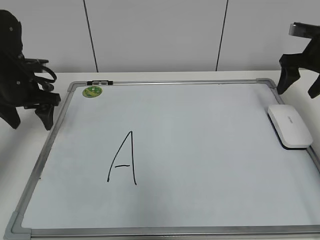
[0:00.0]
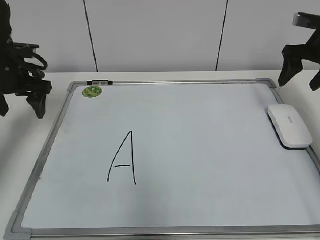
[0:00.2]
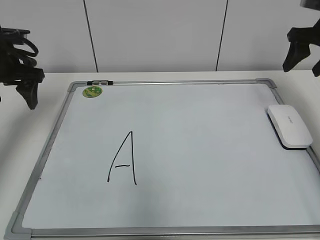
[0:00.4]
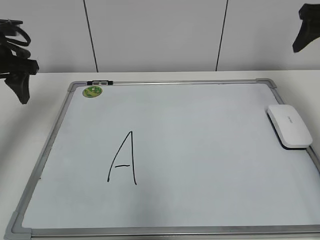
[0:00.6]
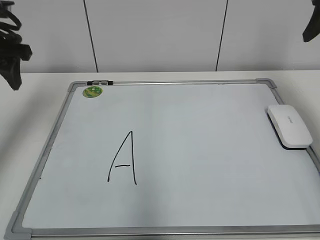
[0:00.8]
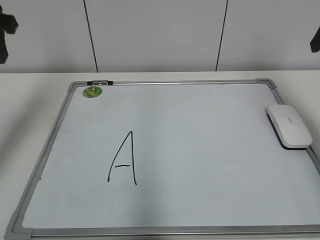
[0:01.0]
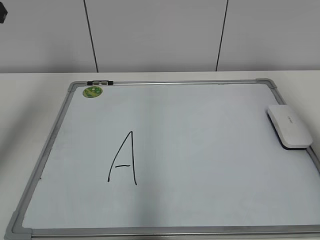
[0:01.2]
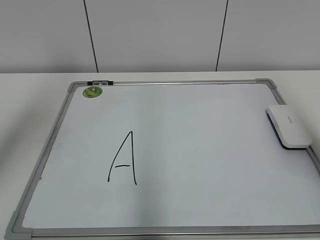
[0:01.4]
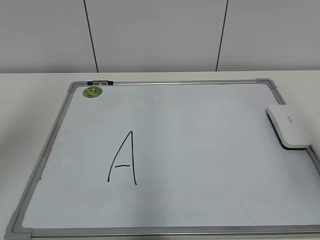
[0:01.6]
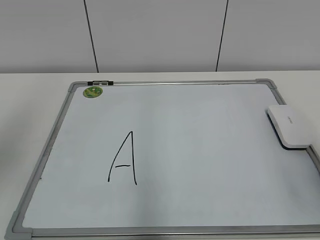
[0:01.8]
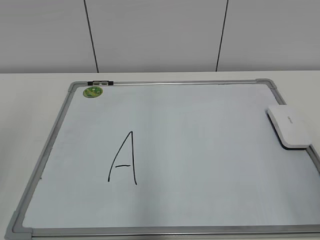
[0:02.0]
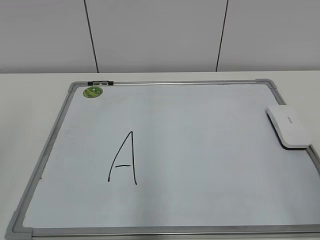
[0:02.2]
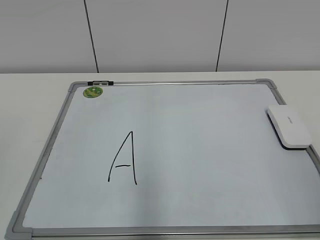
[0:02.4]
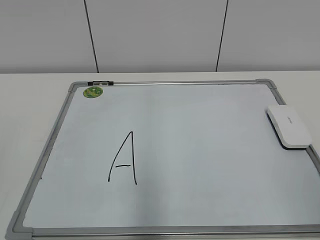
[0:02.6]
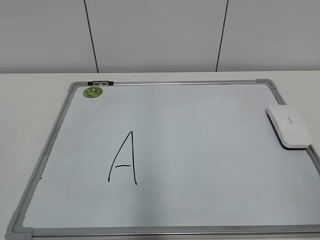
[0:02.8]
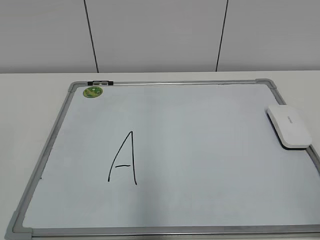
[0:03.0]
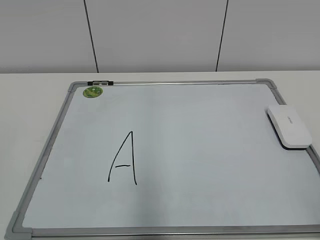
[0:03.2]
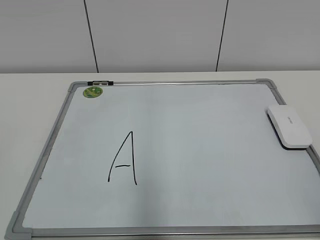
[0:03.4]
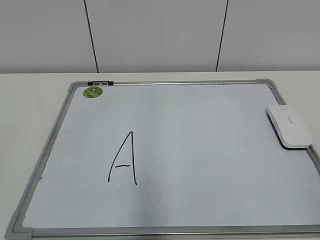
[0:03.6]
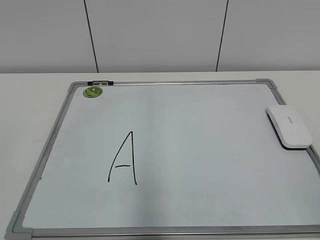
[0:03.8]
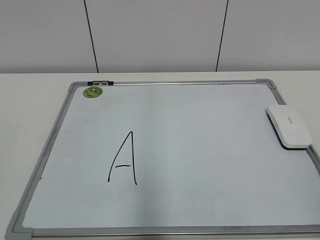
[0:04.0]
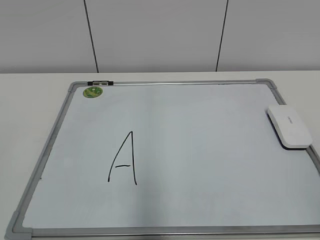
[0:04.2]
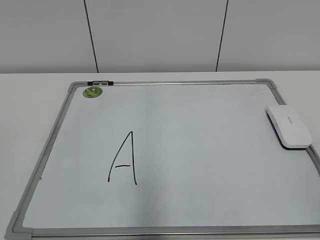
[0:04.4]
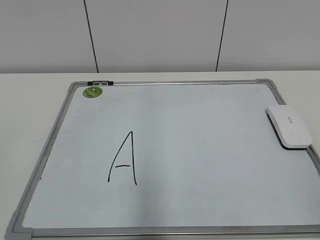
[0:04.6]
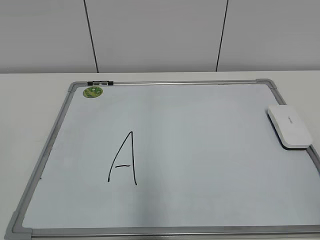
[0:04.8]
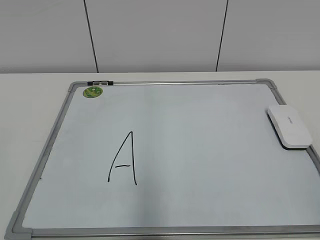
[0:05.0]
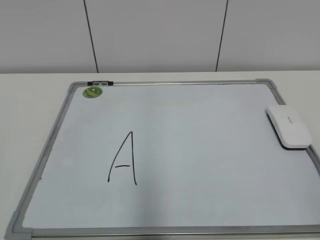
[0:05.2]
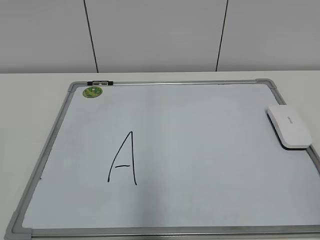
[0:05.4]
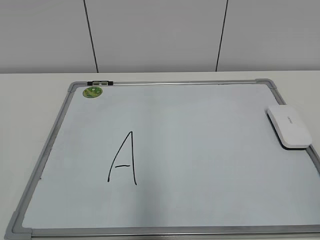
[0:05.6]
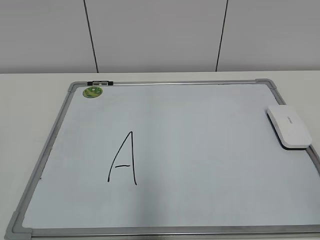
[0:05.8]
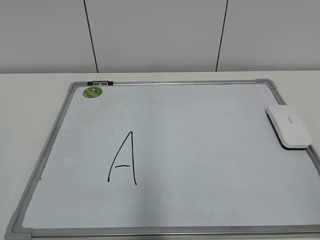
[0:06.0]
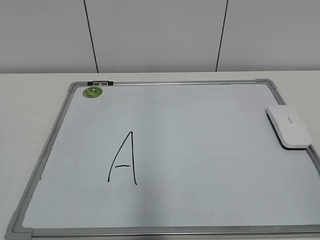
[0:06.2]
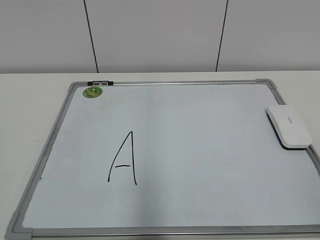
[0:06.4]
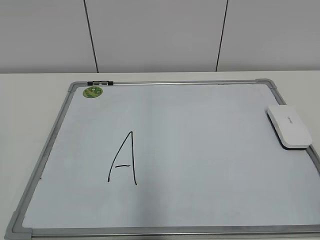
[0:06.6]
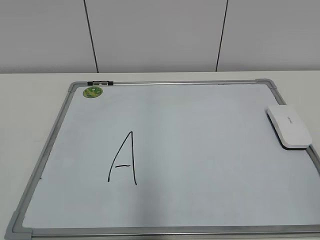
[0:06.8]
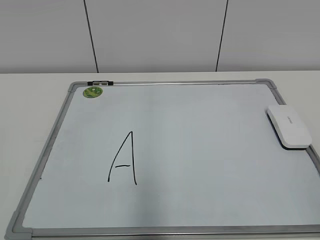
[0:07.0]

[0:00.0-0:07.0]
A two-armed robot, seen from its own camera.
Task of the whole recording: pick up the eraser on the blackboard and erase the letter "a".
0:00.0 to 0:01.4: The right gripper shifts about 25 cm backward and upward, and closes its fingers; the left gripper heads upward and backward, covering roughly 25 cm, and closes its fingers.
0:01.4 to 0:02.8: The grippers both shift backward by roughly 25 cm.
0:05.6 to 0:07.0: Neither gripper changes place.

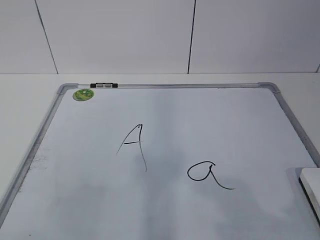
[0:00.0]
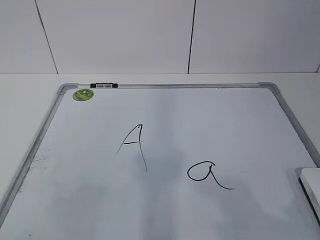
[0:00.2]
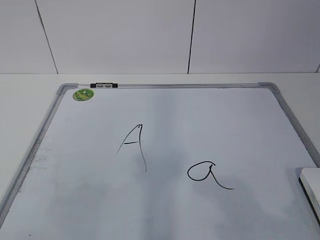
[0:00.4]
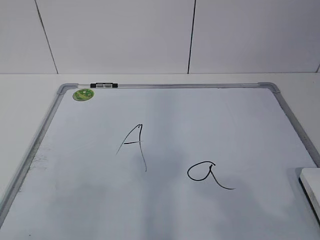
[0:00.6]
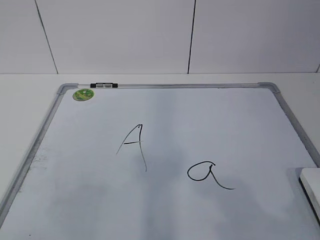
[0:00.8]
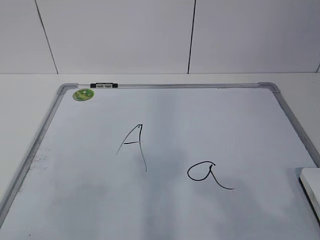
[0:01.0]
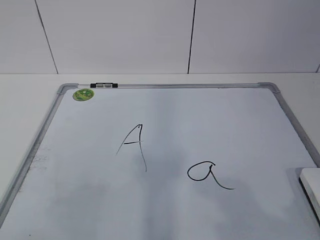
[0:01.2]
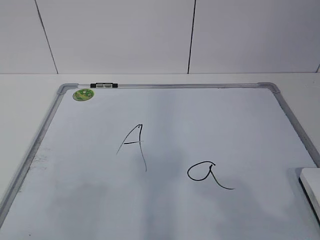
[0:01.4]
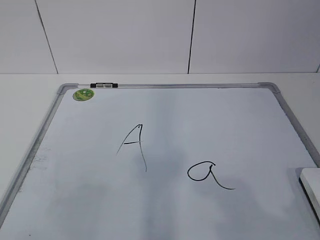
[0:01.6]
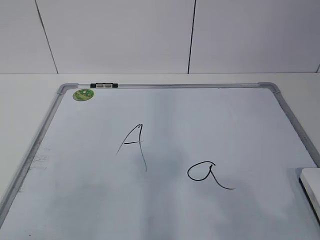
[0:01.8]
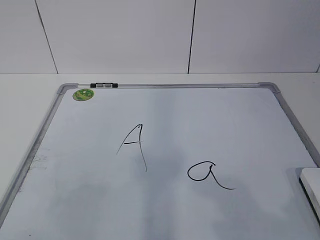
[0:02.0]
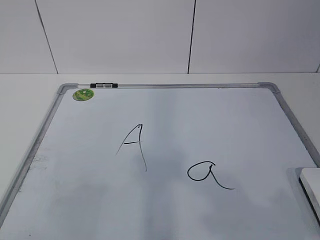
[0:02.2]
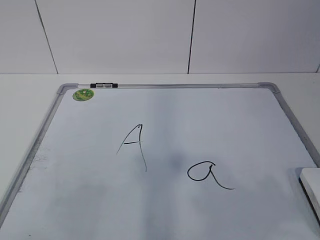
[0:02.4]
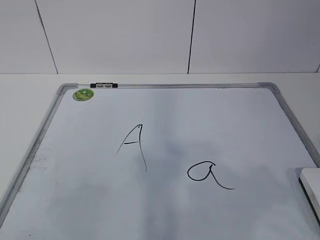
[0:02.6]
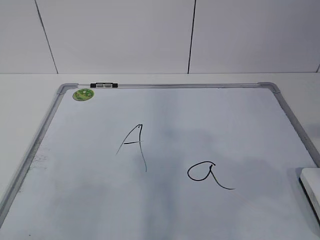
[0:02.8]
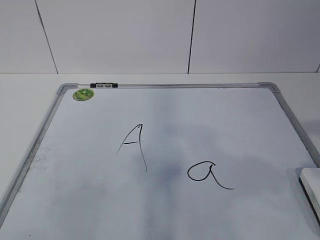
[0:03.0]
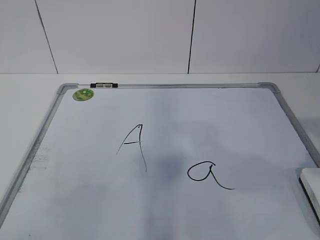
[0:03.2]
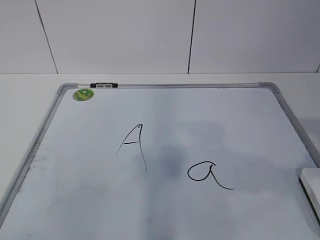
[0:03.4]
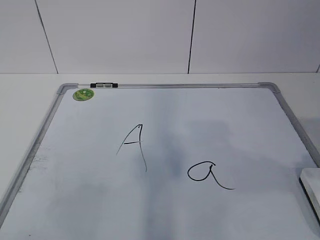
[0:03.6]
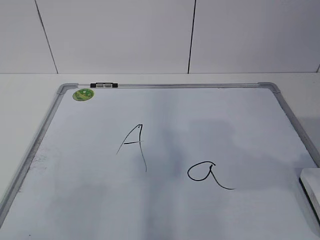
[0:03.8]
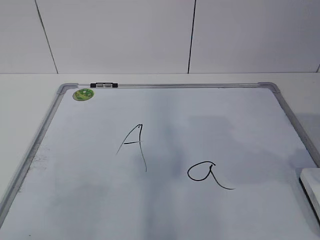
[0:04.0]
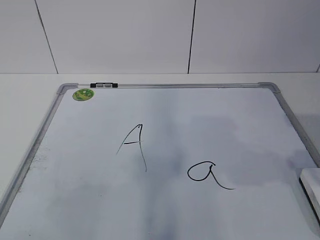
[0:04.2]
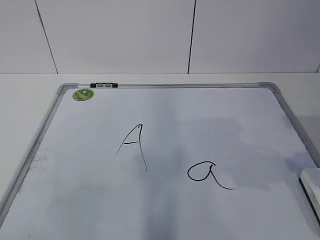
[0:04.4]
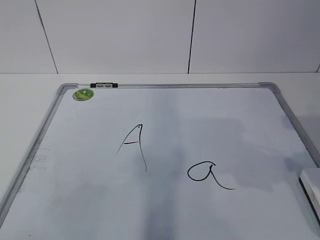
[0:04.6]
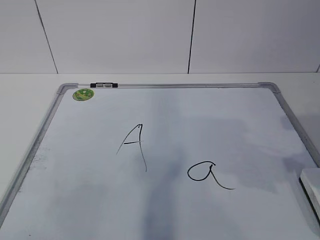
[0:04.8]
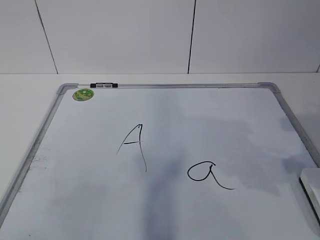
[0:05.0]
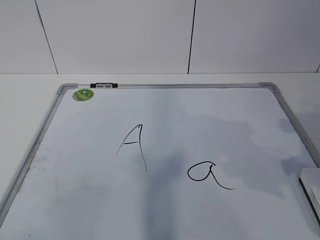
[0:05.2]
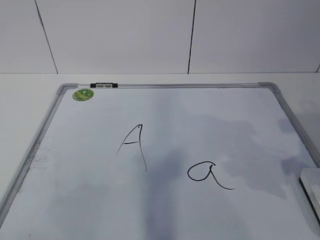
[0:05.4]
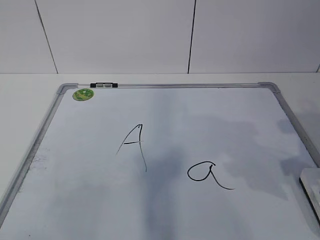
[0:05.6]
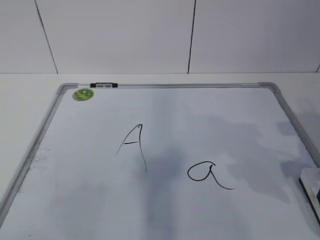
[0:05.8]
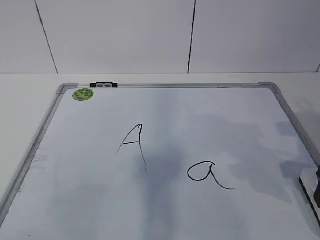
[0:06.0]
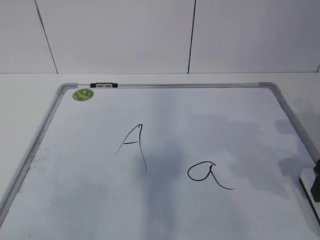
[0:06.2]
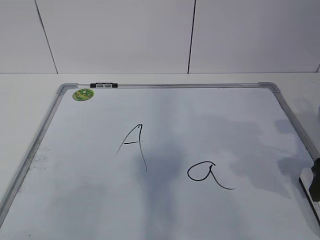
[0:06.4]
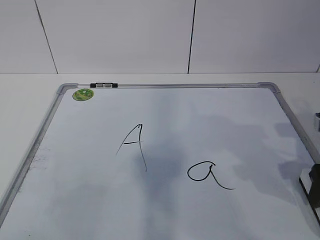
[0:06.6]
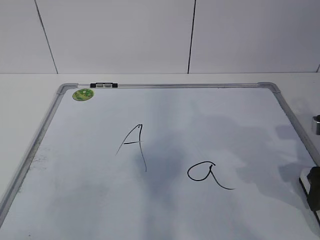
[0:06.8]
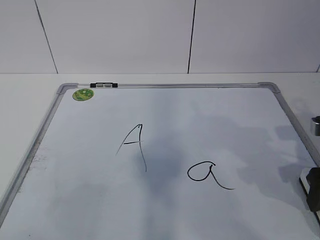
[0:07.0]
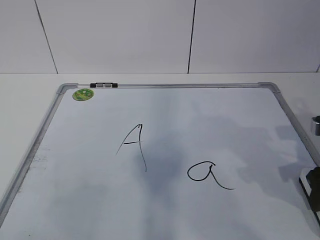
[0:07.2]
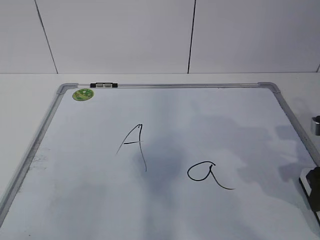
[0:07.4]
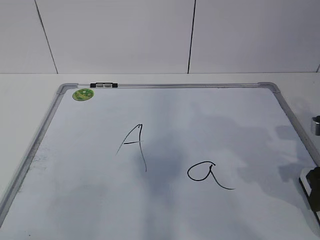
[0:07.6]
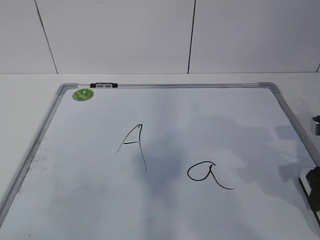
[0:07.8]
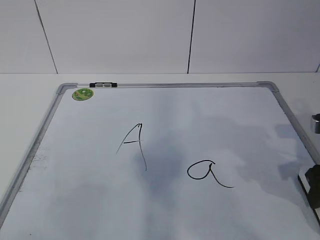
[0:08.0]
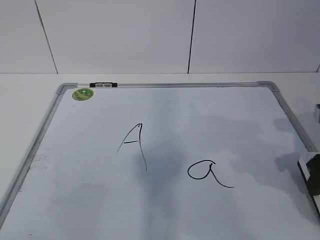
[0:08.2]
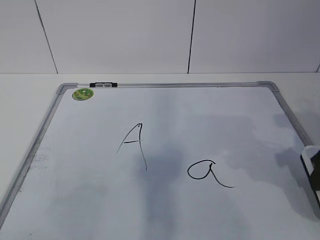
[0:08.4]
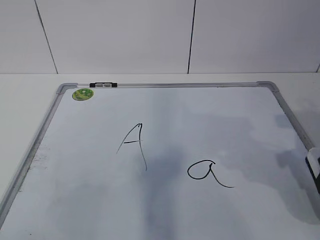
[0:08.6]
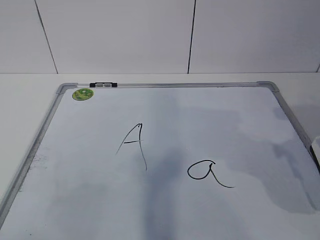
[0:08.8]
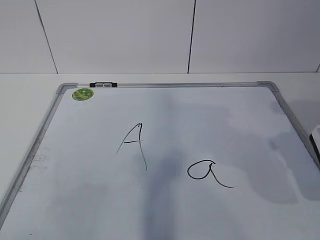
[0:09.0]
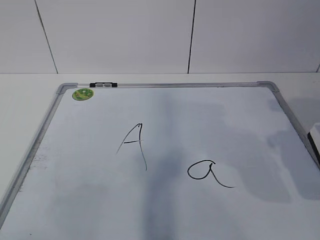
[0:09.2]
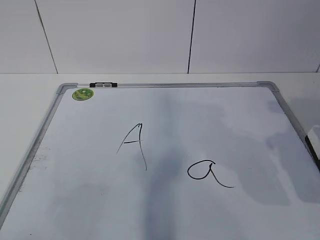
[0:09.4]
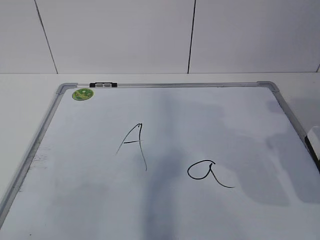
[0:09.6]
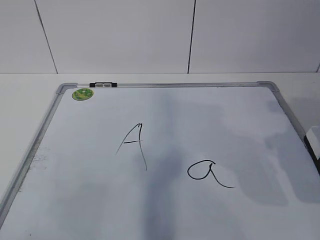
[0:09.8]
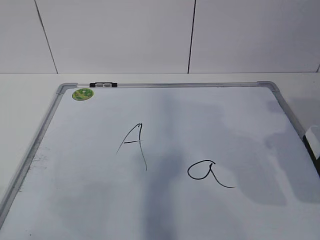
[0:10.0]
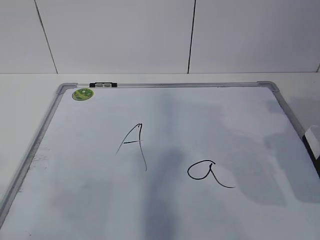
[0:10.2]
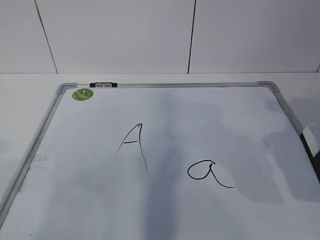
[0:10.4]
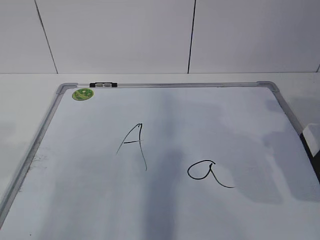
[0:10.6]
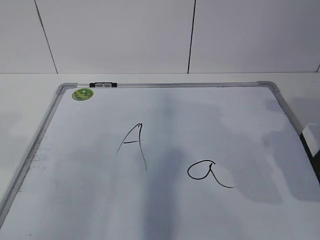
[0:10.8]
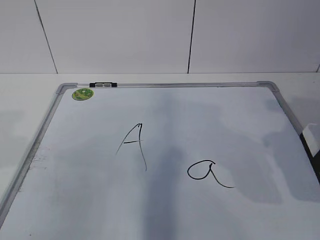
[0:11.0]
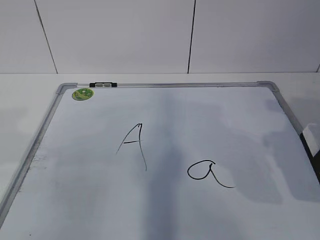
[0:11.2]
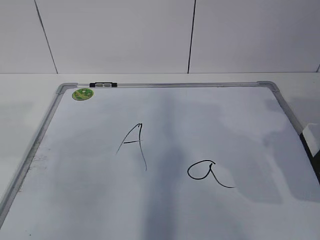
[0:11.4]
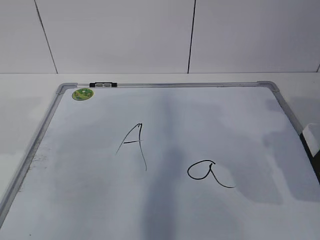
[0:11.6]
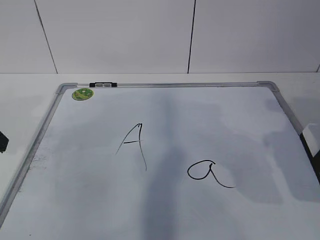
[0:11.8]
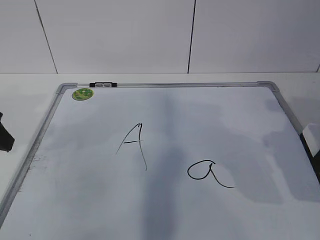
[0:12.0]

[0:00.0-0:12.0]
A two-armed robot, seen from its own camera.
Task of the whole recording: pick up the eraser on the blackboard and erase the letter "a".
Step, 0:06.8 to 0:11.4: Hold the drawing board steady with your left hand.
0:07.6 to 0:09.0: The right gripper is displaced upward by some 10 cm.
0:10.4 to 0:12.0: The left gripper goes approximately 20 cm forward, and opens up.

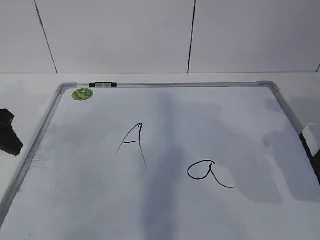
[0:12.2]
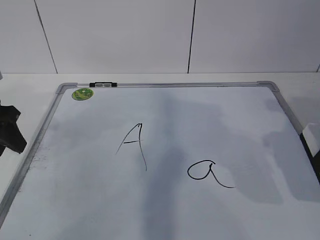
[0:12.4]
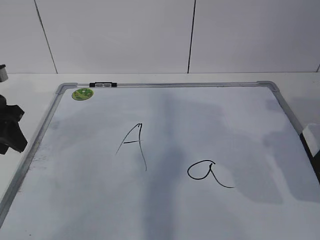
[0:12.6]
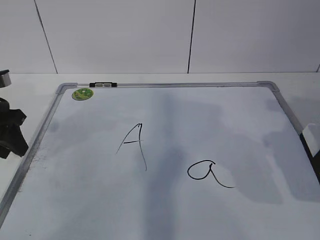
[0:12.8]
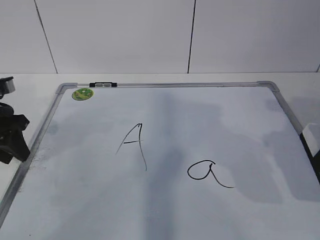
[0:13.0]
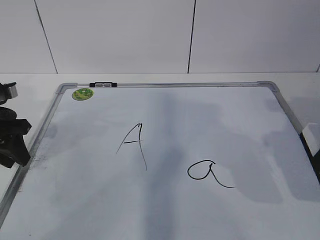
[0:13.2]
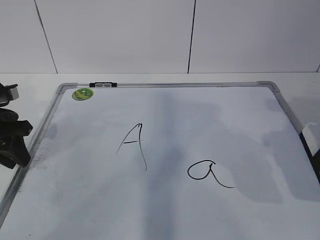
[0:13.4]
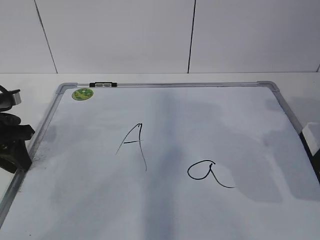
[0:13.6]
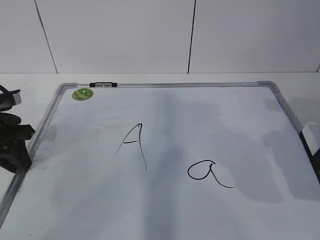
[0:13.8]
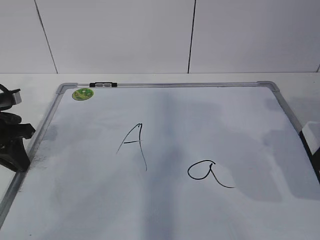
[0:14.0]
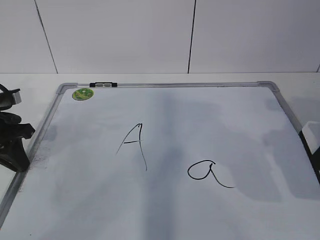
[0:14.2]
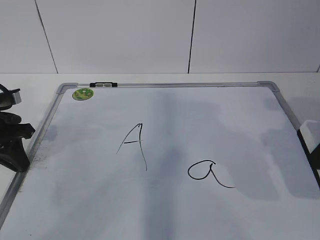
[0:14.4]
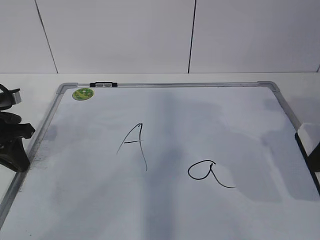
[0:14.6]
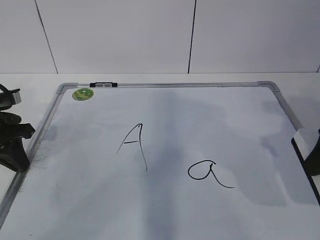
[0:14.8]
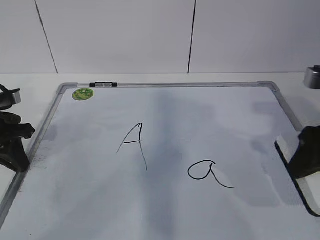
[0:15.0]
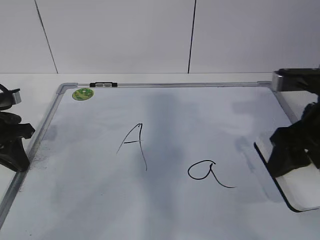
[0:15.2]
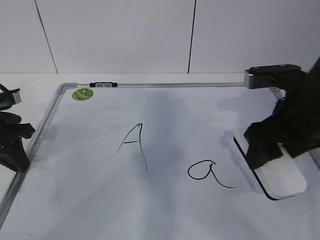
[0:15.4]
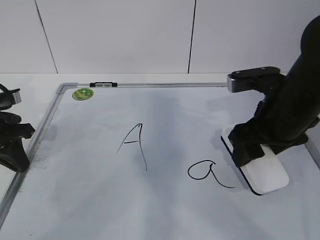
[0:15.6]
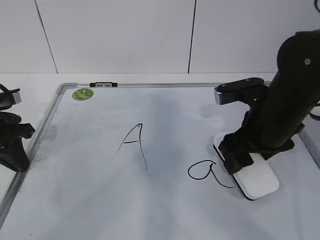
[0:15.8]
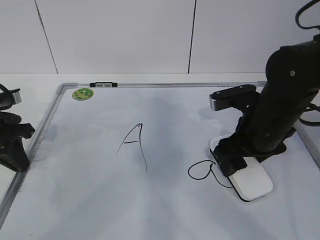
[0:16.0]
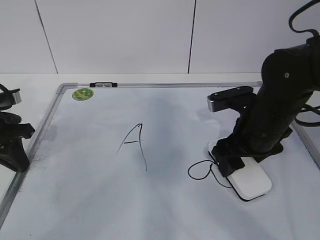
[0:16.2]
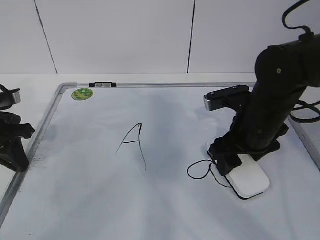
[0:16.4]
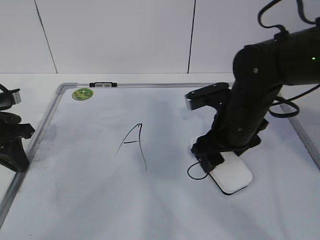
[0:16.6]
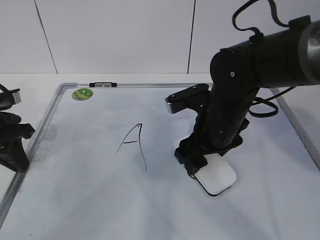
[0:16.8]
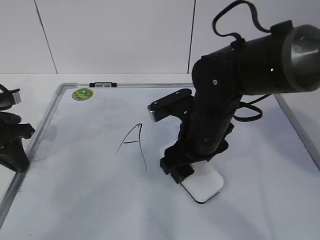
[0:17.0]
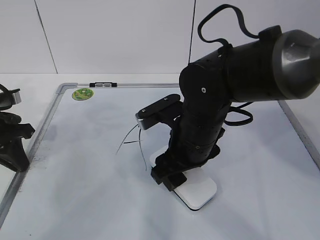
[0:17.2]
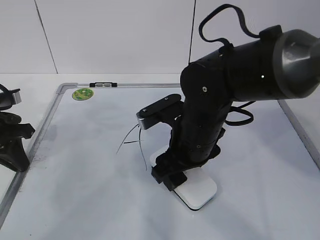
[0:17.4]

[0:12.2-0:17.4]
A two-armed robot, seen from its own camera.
Task of the whole recording: pick up the eraser on the blackboard and erase the letter "a".
Step, 0:12.2 to 0:15.4: Erase the letter a with your right hand.
0:12.2 to 0:14.0: The left gripper is displaced downward by about 5 cm, and closes up.
0:14.0 to 0:15.6: The right gripper heads to the left, forward and downward, covering roughly 15 cm.
0:15.6 to 0:17.4: The right gripper shifts about 15 cm to the left and downward.
